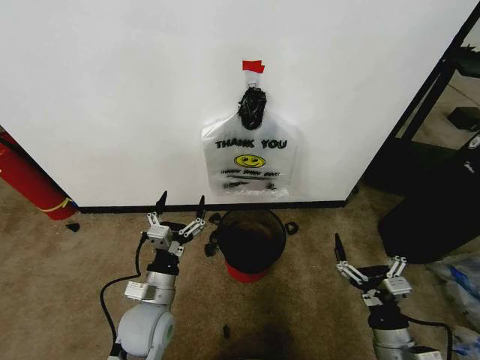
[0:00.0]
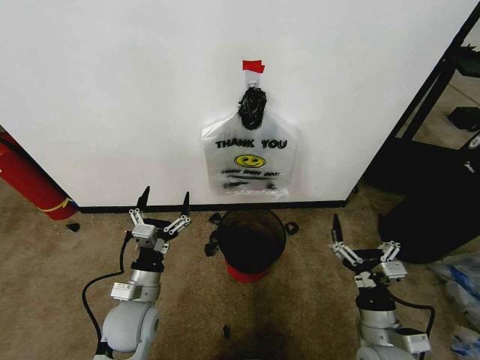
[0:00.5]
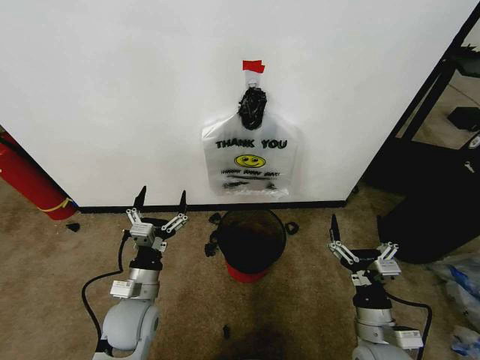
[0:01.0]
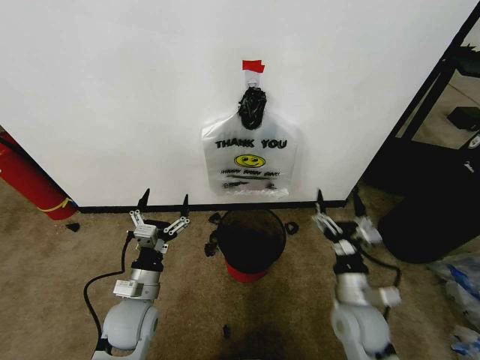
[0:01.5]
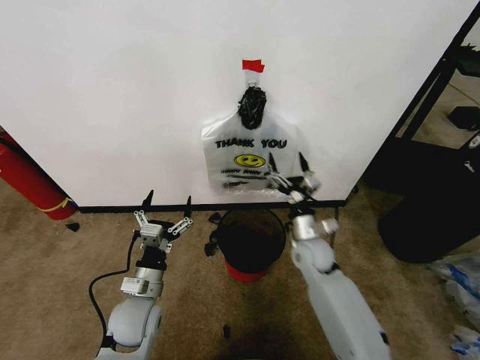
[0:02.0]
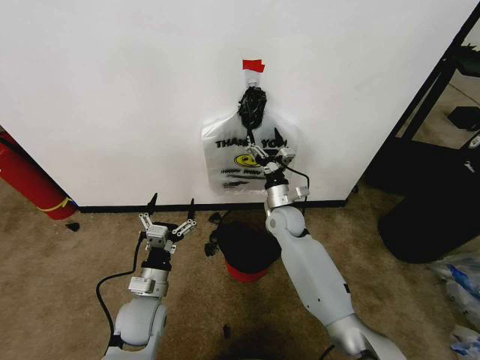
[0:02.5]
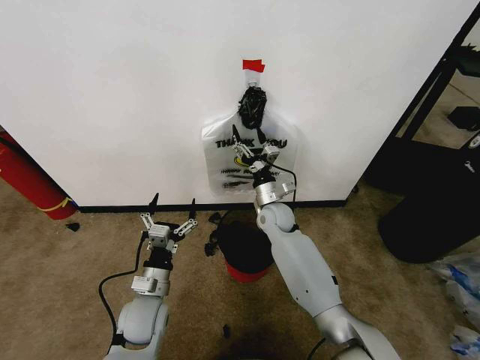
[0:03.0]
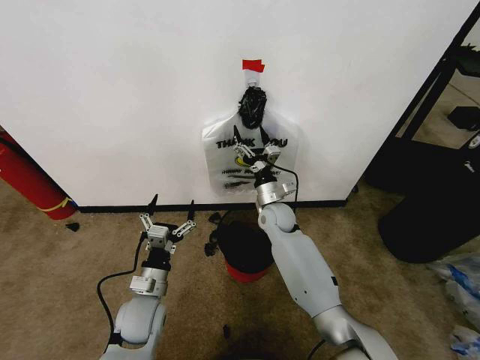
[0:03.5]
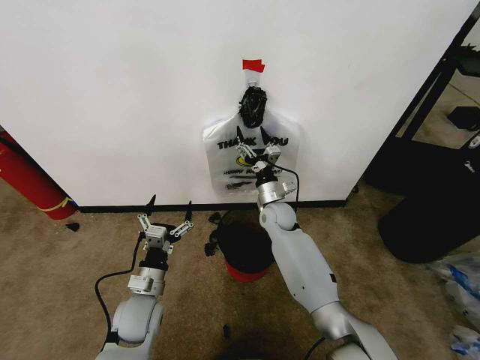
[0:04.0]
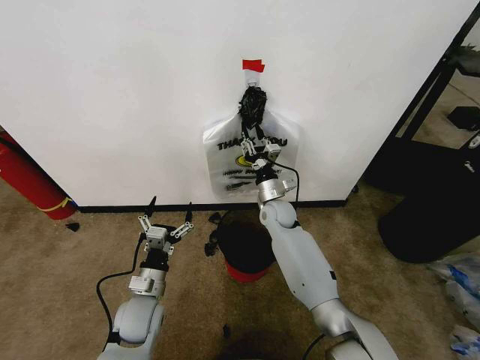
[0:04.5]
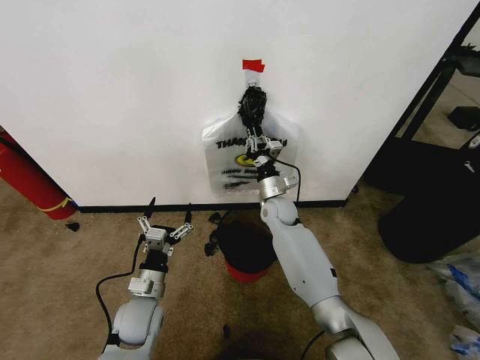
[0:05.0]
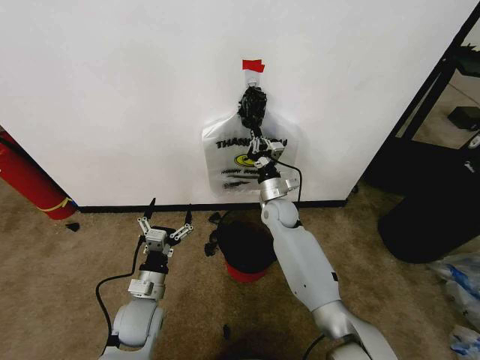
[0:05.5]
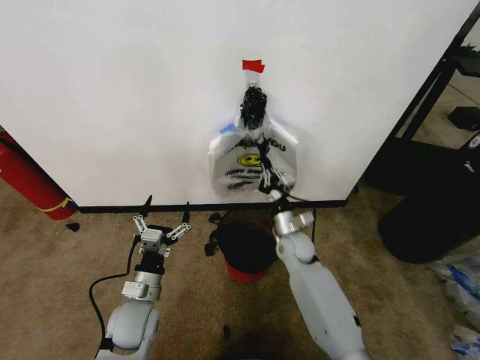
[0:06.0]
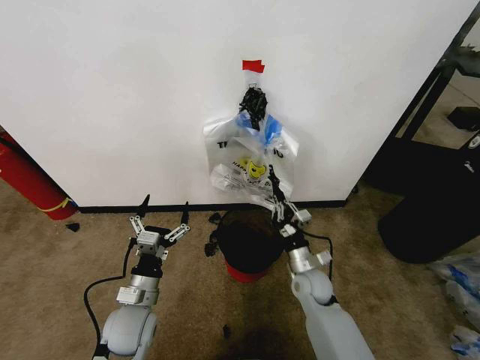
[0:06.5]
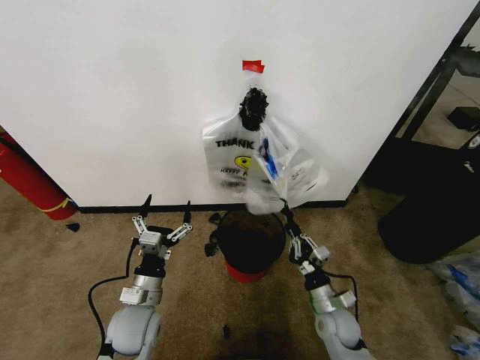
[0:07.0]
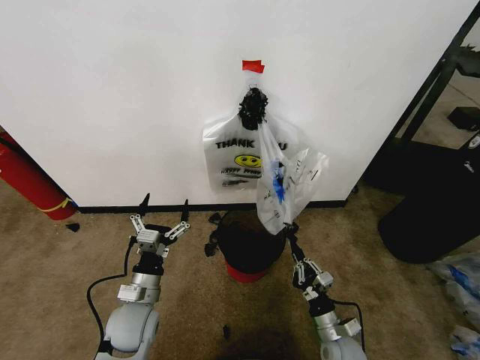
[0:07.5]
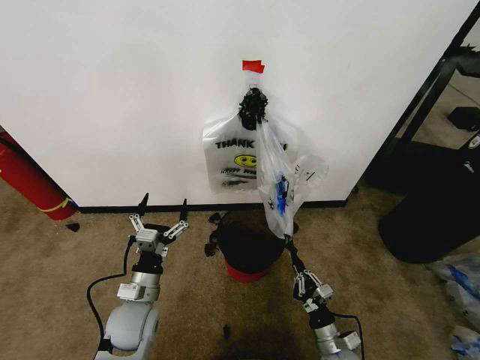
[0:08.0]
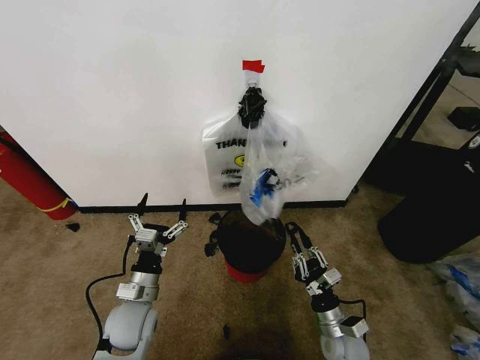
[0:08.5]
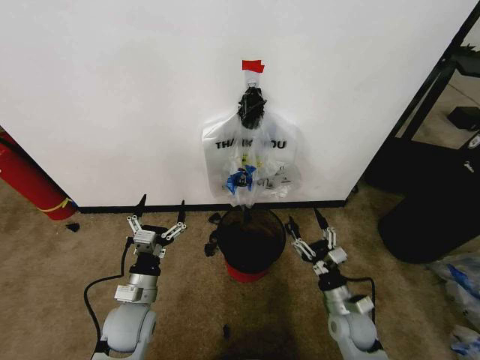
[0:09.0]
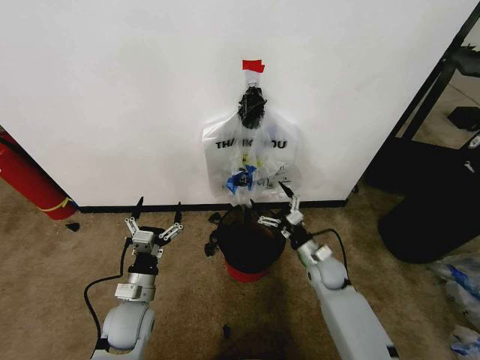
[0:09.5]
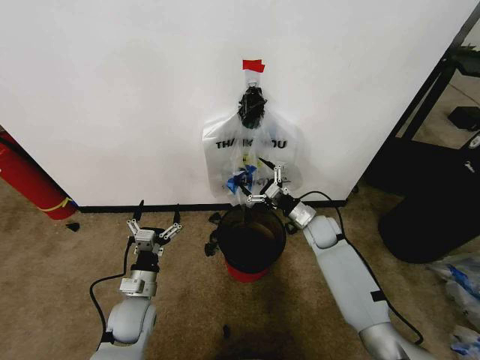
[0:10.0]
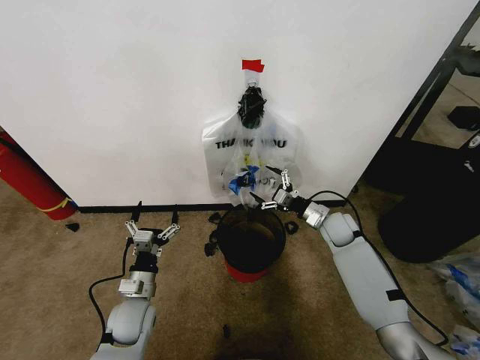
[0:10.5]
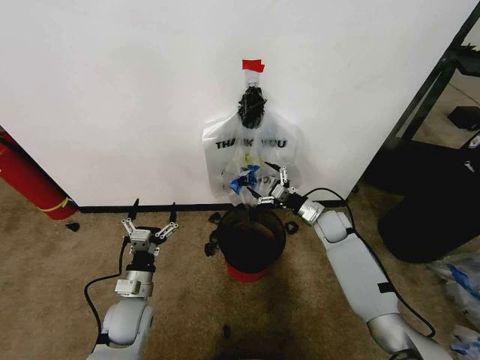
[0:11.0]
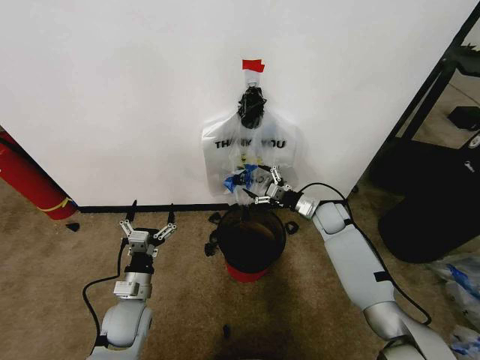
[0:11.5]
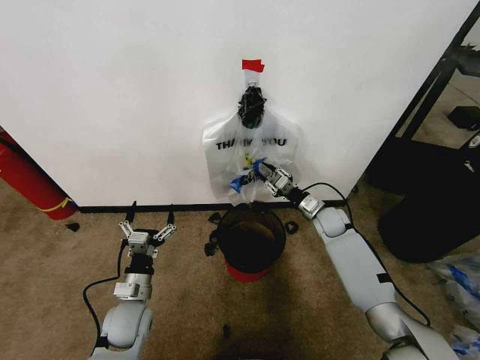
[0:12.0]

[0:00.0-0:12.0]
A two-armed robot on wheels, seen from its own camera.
Task of the whole recording: Pick up the garbage bag from the wall and place it over the trash bin.
0:02.0 to 0:04.0: The right gripper is displaced forward and to the left by some 15 cm.
0:04.0 to 0:06.0: The right gripper is displaced backward and downward by approximately 10 cm, and closes.
0:06.0 to 0:08.0: The right gripper travels backward and downward by about 30 cm.
0:08.0 to 0:10.0: The right gripper goes roughly 35 cm forward and upward, and opens up.
0:10.0 to 0:12.0: The right gripper shifts by some 5 cm, and closes its fingers.

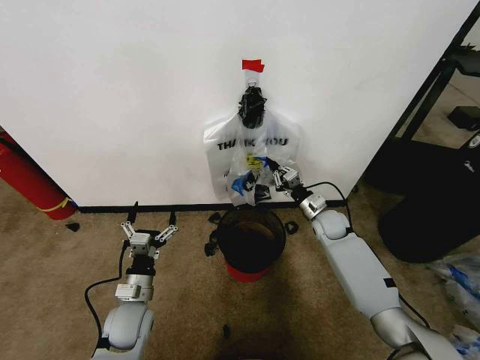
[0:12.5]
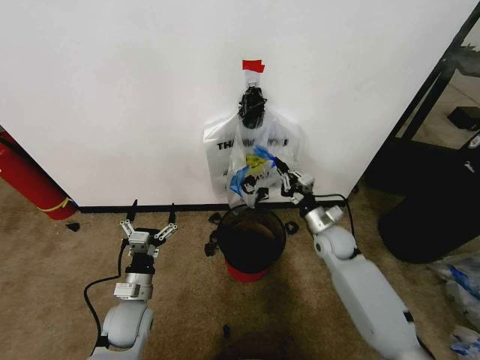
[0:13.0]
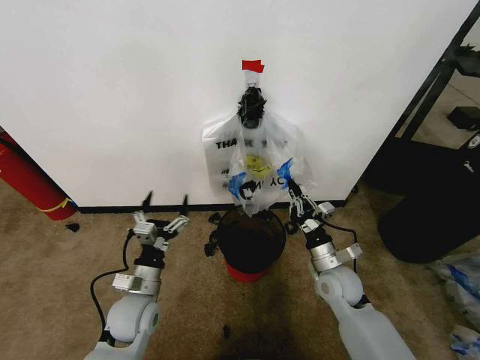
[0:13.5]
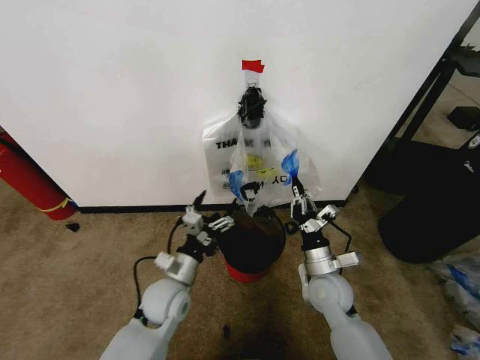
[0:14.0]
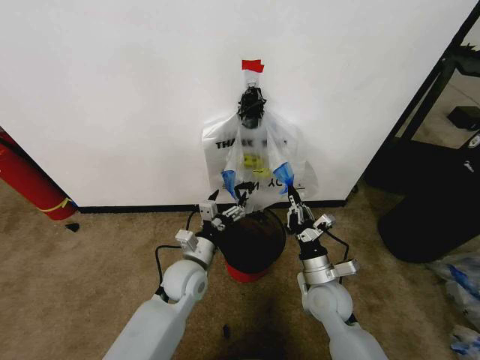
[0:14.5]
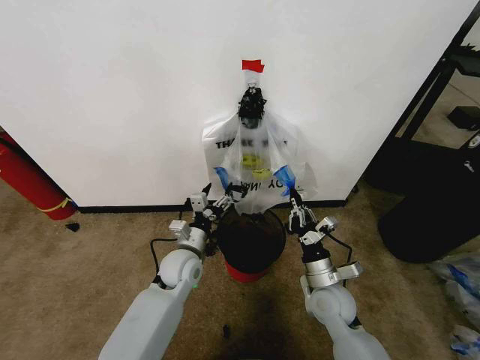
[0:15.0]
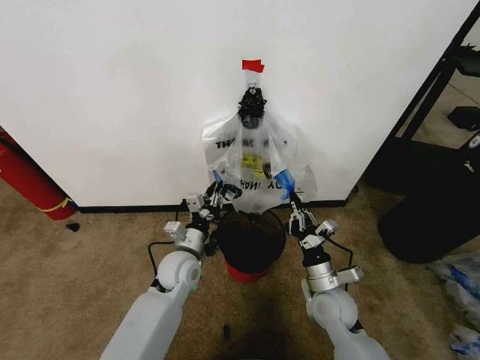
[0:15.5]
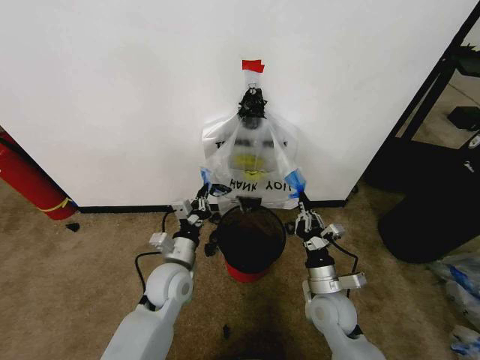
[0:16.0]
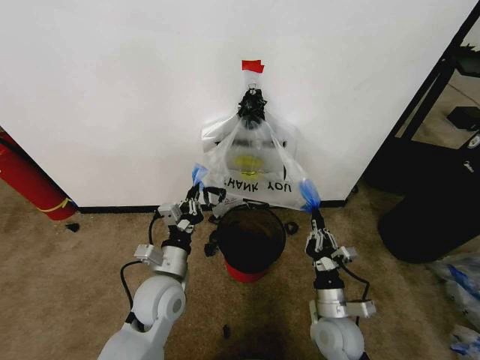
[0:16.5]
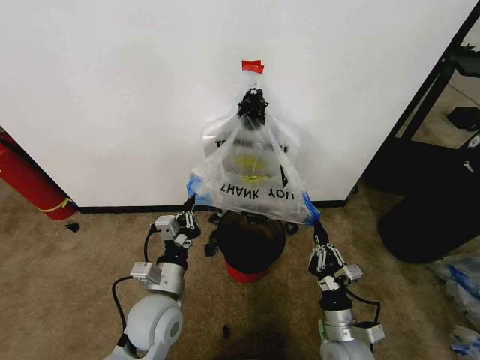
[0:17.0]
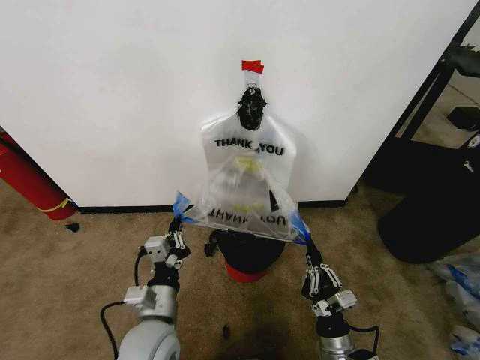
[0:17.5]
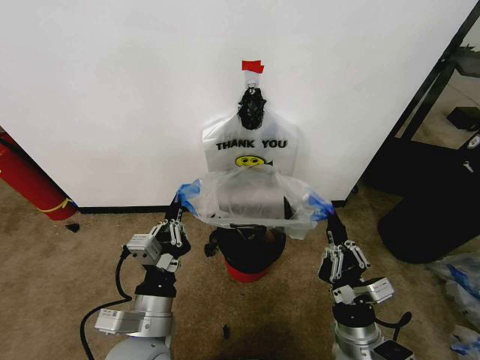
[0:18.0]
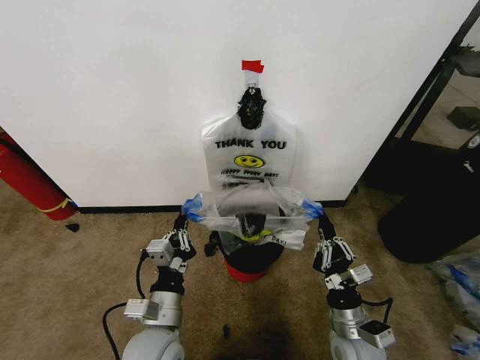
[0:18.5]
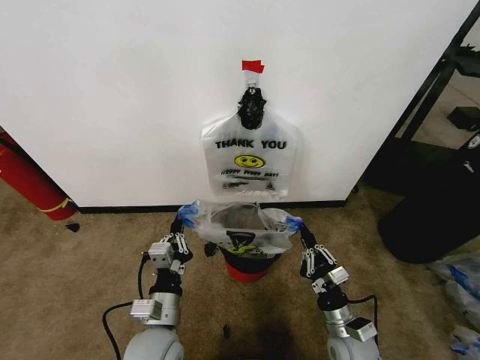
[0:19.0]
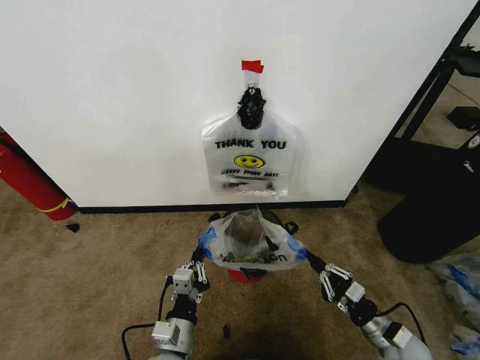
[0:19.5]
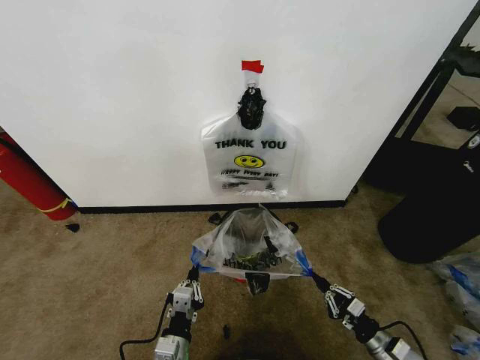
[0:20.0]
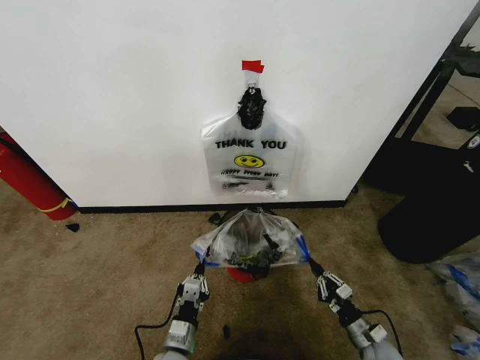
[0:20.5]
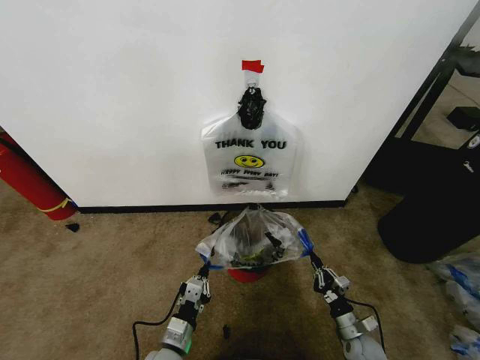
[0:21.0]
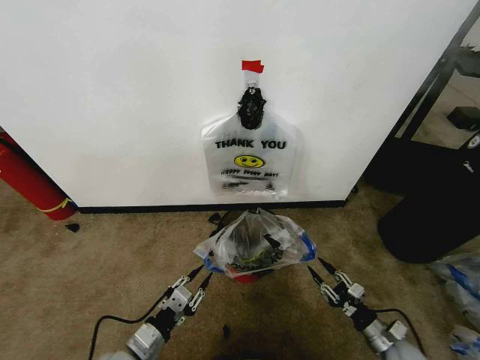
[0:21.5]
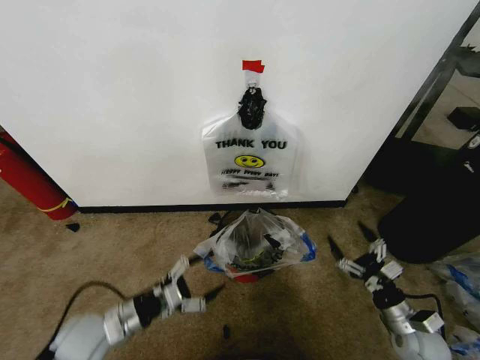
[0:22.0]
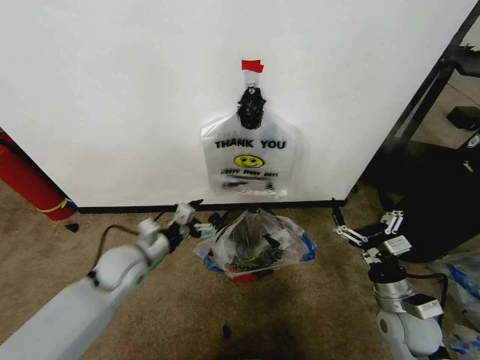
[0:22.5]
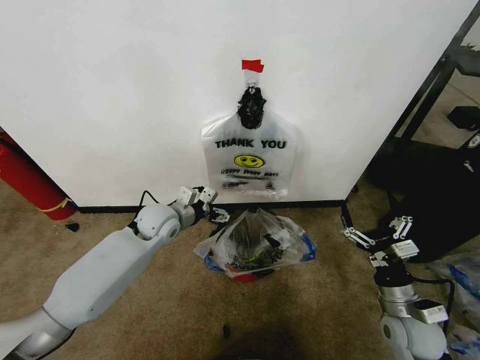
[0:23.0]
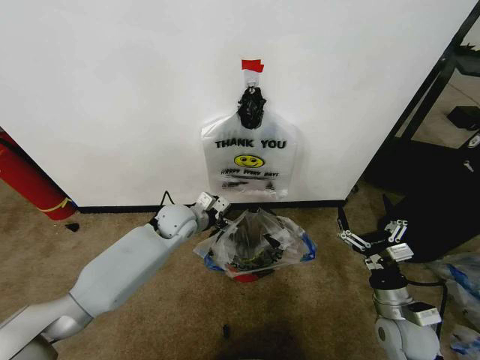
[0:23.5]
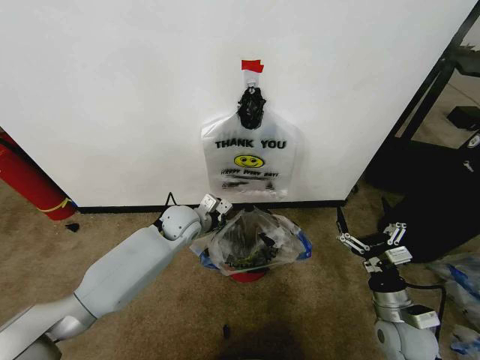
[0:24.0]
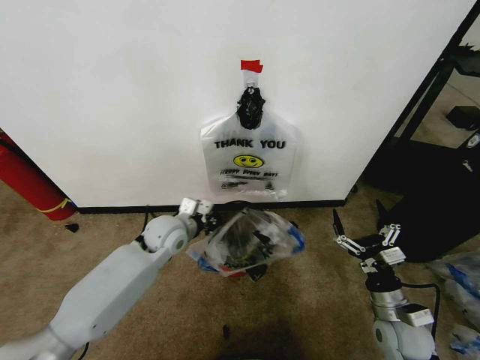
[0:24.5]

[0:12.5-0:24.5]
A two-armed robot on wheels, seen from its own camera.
Task of the whole recording: Pick up the garbage bag from the wall and place it over the trash bin.
0:12.5 to 0:14.5: The left gripper heads to the right and forward, covering approximately 15 cm. Meanwhile the right gripper is displaced backward by about 20 cm.
0:14.5 to 0:16.5: The grippers both shift backward by approximately 5 cm. The left gripper closes its fingers.
0:16.5 to 0:18.5: The left gripper heads backward, covering some 10 cm.
0:18.5 to 0:20.5: The left gripper moves downward, about 15 cm. Meanwhile the right gripper moves downward and to the right, about 20 cm.
0:20.5 to 0:22.5: The left gripper travels forward, upward and to the left by approximately 25 cm, and opens its fingers; the right gripper travels upward by roughly 20 cm, and opens.
0:22.5 to 0:24.5: The left gripper is displaced to the right and forward by roughly 10 cm, and closes.

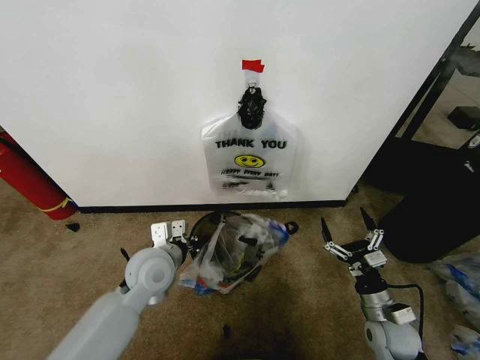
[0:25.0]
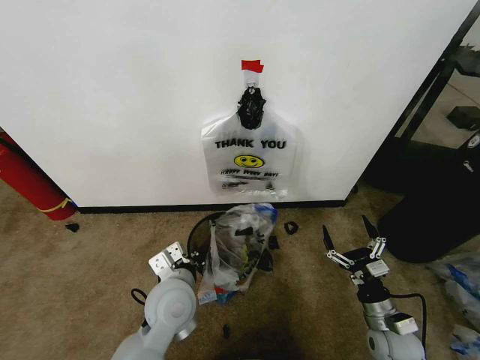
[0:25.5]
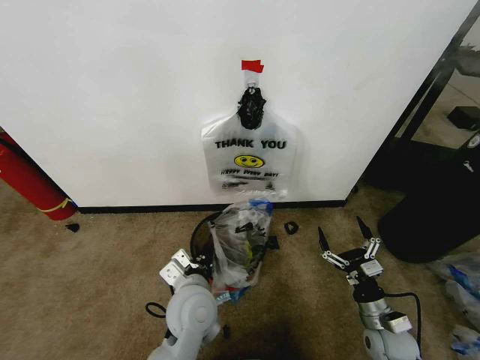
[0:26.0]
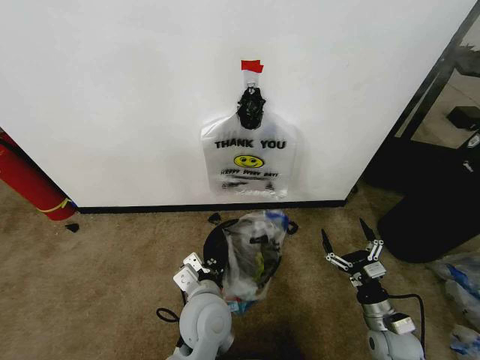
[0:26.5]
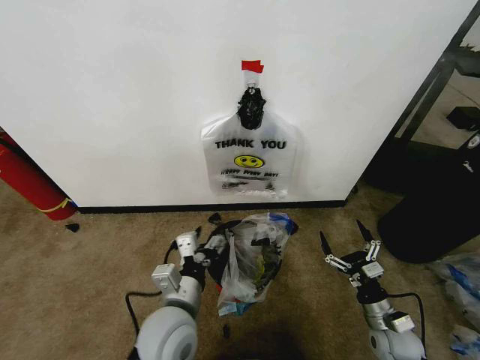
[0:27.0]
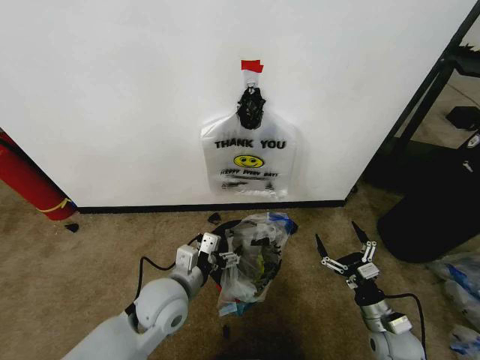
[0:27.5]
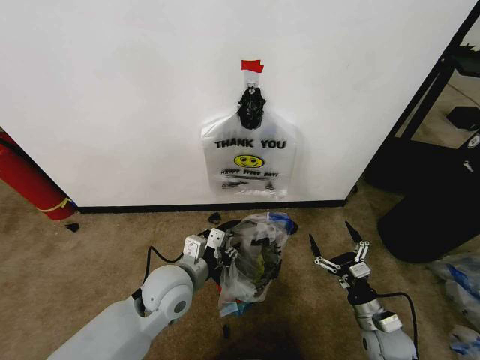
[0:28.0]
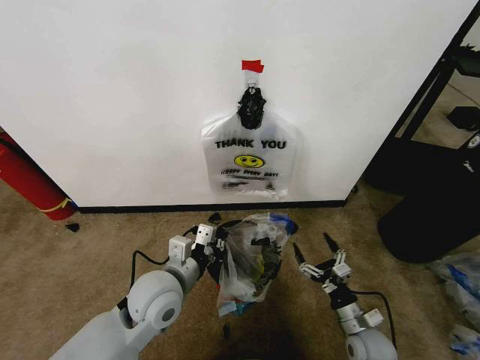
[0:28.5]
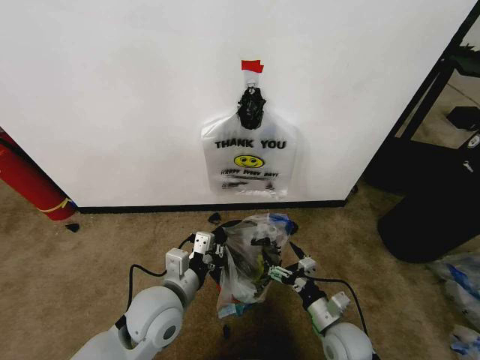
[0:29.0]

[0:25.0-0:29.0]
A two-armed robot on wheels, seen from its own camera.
Task of the whole recording: Pick up the garbage bag from the wall and place it over the trash bin.
0:25.0 to 0:27.0: The left gripper goes about 15 cm backward and to the right, and opens up.
0:27.0 to 0:29.0: The right gripper shifts approximately 10 cm to the left; the left gripper closes.
